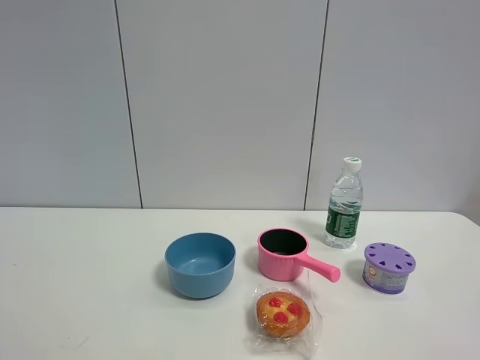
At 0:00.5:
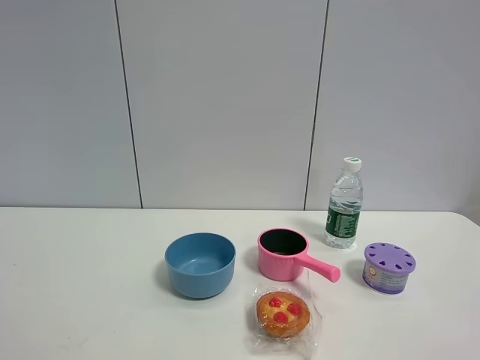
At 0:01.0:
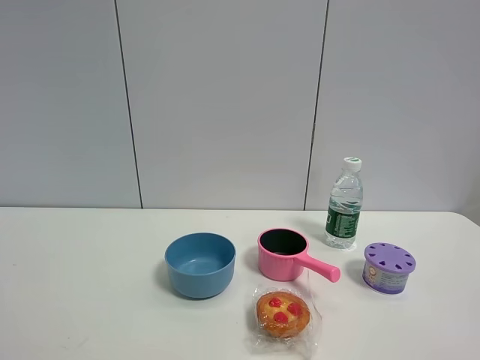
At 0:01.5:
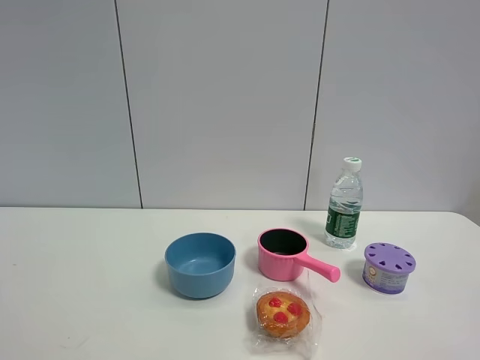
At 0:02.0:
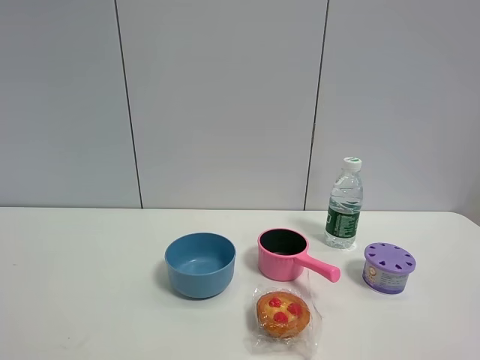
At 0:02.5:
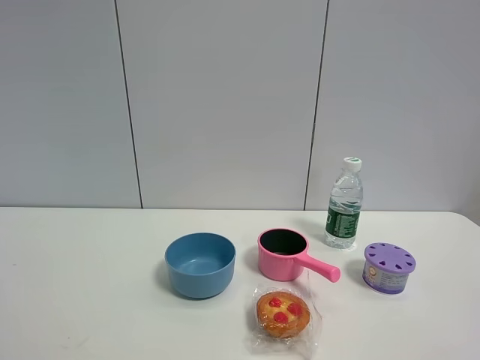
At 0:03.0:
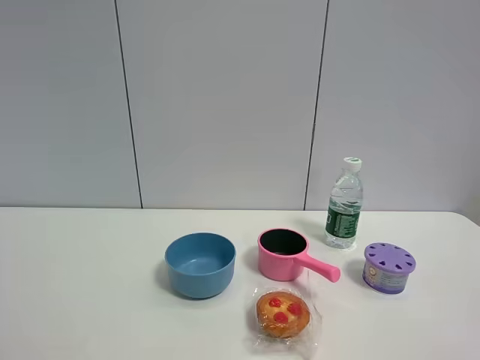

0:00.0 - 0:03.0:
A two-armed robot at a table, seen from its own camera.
Task of the whole recording: the gripper move the object.
0:00.0 - 0:03.0: Neither gripper changes place.

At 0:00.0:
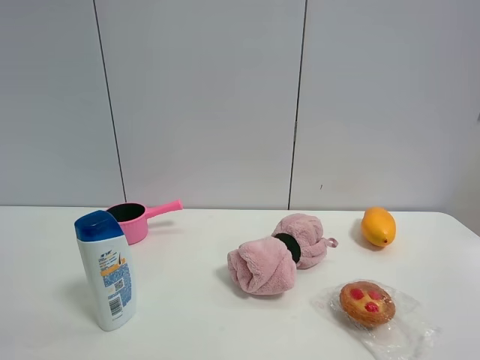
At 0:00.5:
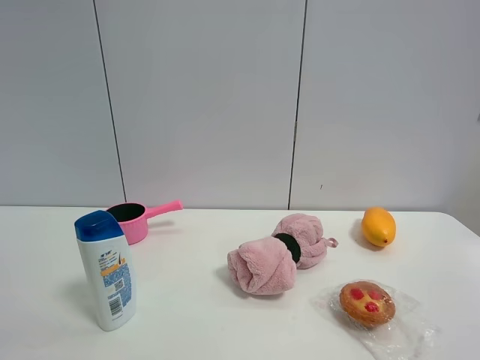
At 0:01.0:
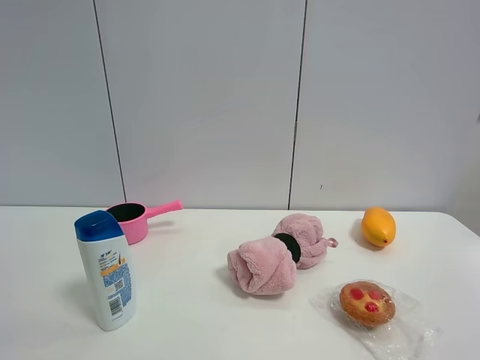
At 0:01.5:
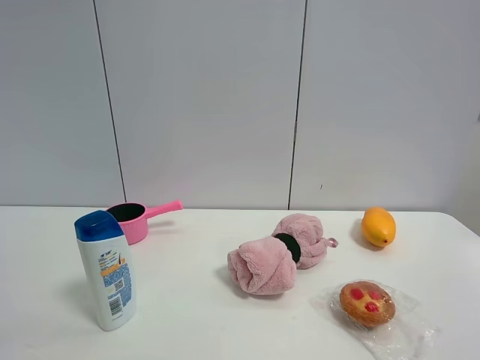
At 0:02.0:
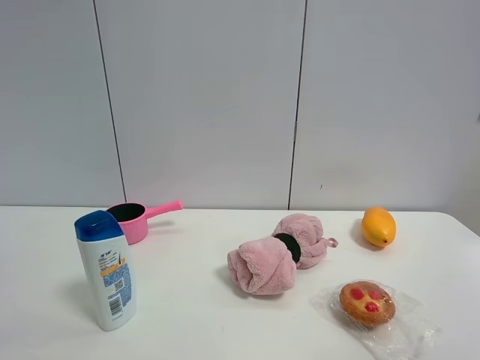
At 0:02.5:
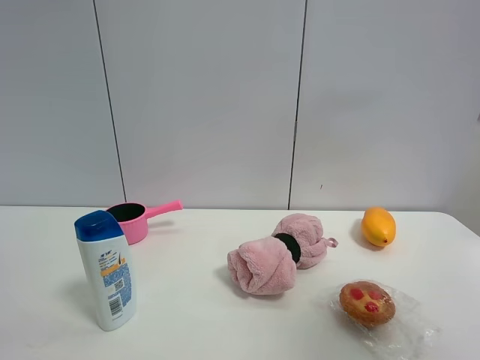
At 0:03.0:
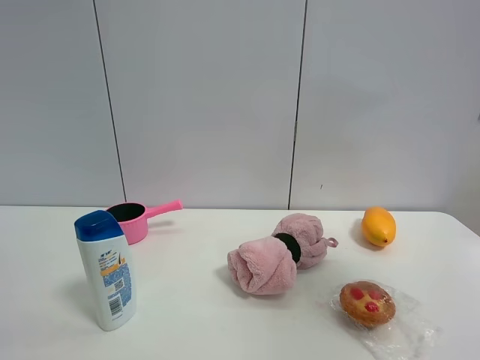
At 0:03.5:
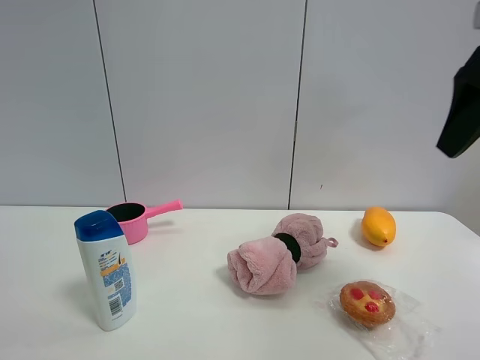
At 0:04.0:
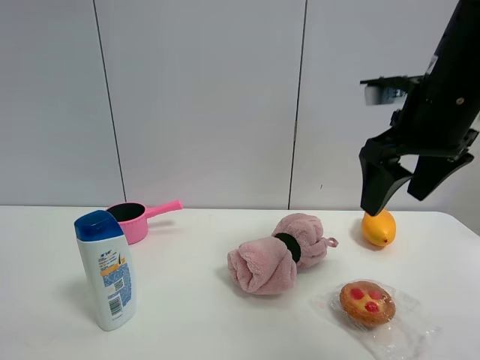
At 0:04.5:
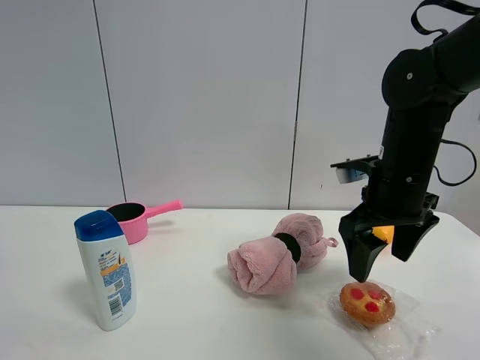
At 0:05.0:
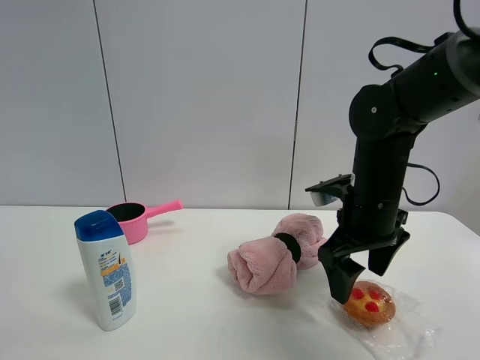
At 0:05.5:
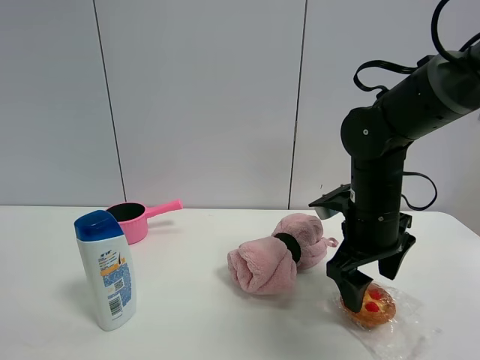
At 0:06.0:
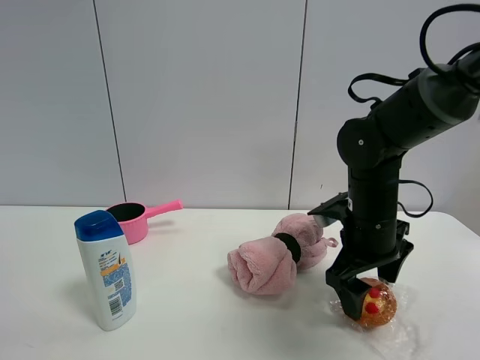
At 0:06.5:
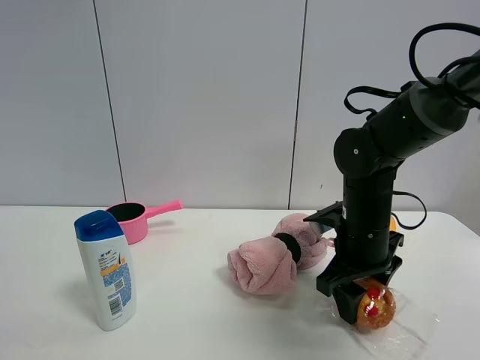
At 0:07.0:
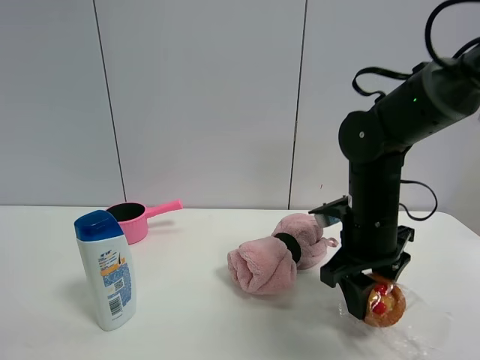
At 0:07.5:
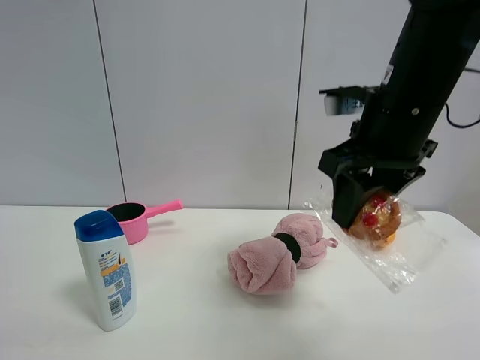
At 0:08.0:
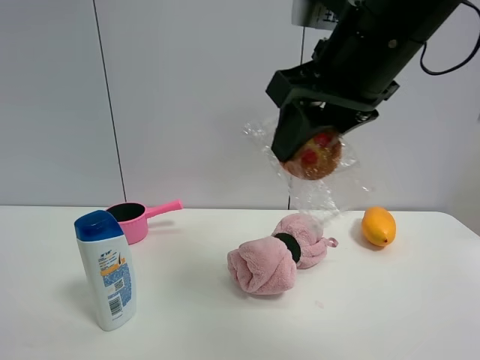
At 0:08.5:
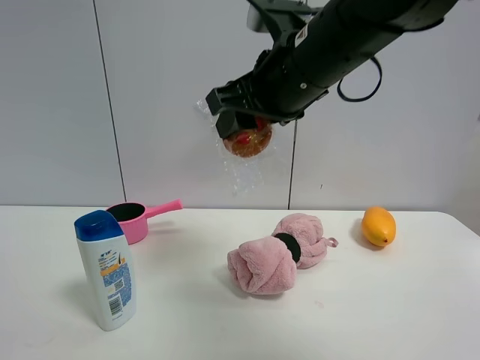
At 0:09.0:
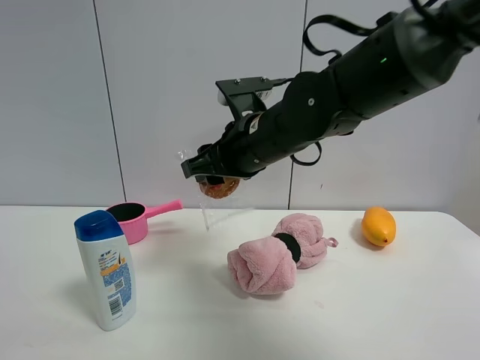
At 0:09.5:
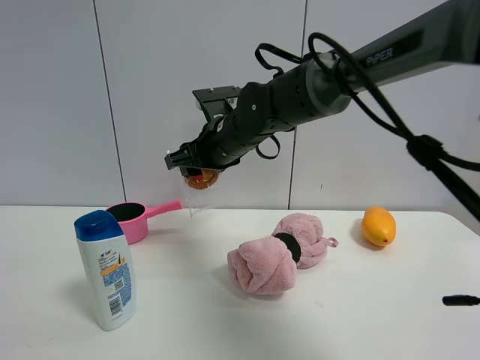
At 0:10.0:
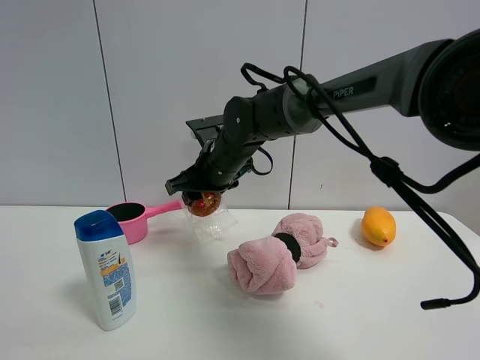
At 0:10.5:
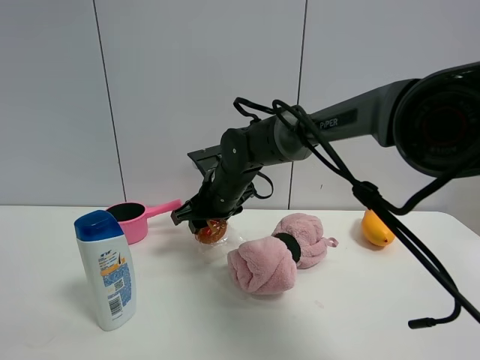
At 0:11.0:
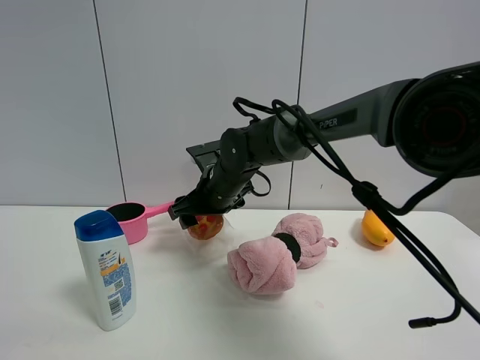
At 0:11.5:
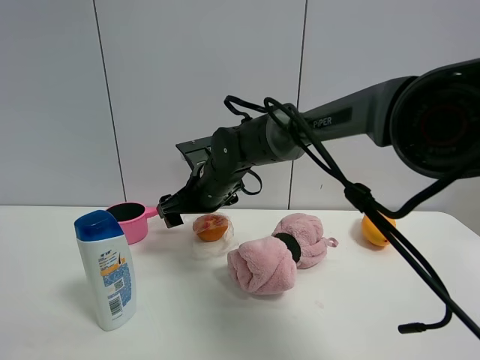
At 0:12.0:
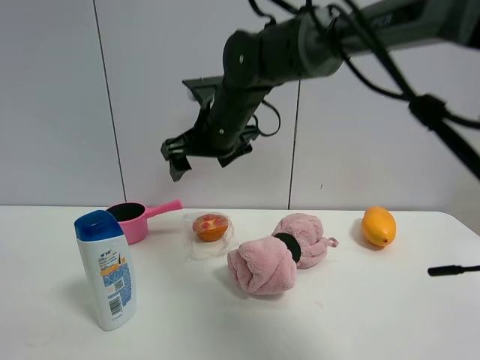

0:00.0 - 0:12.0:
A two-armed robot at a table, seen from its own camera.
Task of the whole recording: the gripper move the object.
Step, 0:00.0 - 0:06.5: Grasp the egg tart with the right gripper.
Step, 0:07.0 - 0:11.0: Place the egg tart on the table with the right gripper.
0:02.0 - 0:04.0: The right gripper shifts approximately 30 cm forward.
0:04.0 - 0:06.0: The right gripper is displaced downward by approximately 15 cm.
0:06.0 - 0:08.0: The right gripper moves upward, about 20 cm, and closes up.
0:08.0 - 0:10.0: The right gripper shifts roughly 30 cm forward, downward and to the left.
0:10.0 - 0:12.0: The right gripper goes roughly 10 cm upward, and opens up.

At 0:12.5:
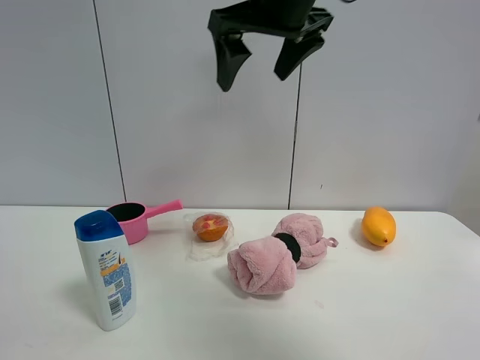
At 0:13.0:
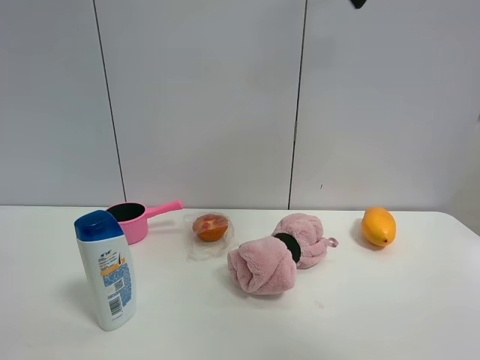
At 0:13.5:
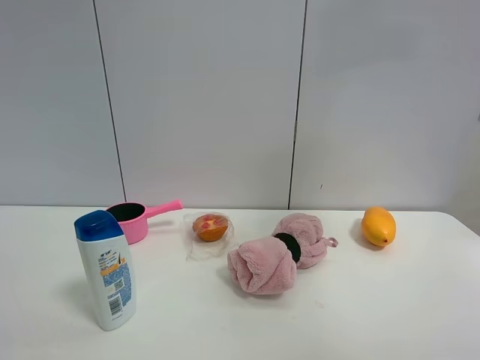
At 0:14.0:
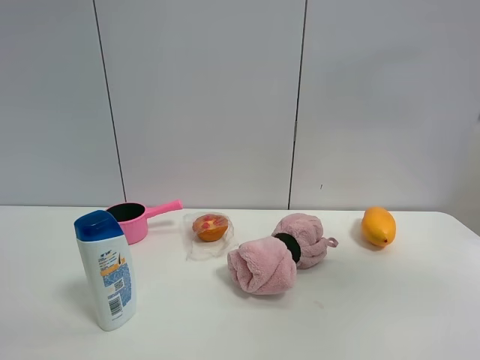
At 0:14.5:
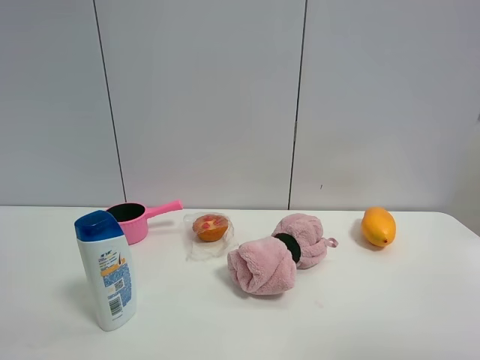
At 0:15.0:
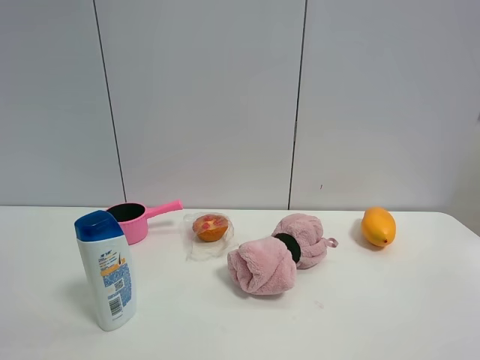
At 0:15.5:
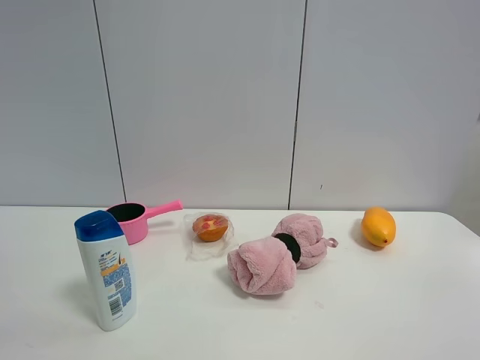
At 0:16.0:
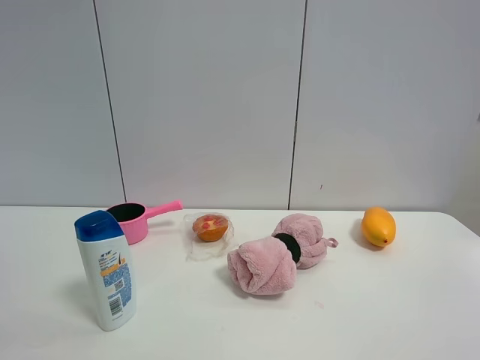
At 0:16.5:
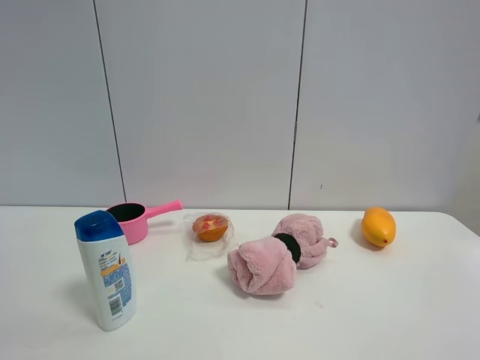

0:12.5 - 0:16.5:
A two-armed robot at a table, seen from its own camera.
Task of the whole recording: the gripper move the object.
0:12.5 - 0:14.5: The right gripper is displaced backward and to the right by about 40 cm.

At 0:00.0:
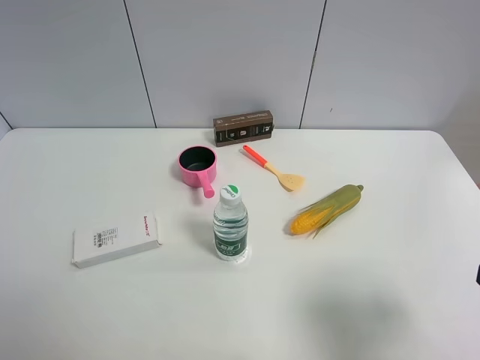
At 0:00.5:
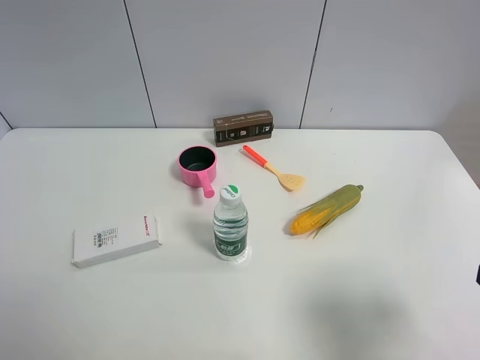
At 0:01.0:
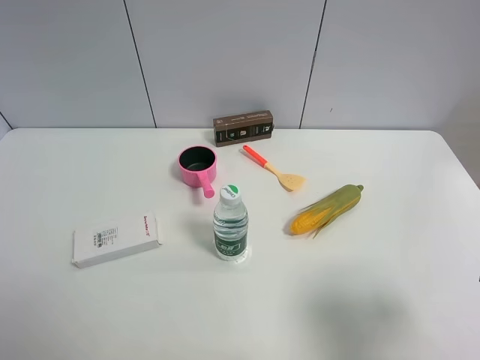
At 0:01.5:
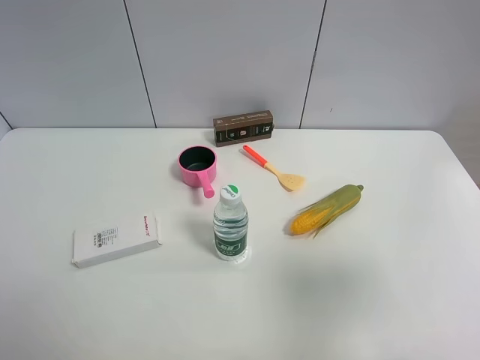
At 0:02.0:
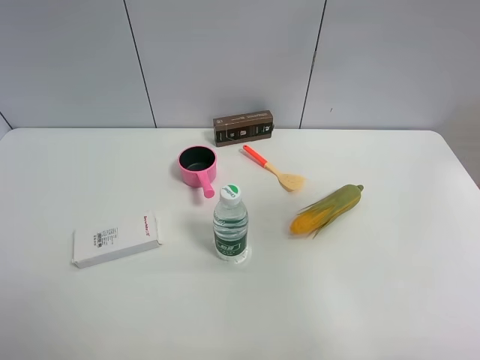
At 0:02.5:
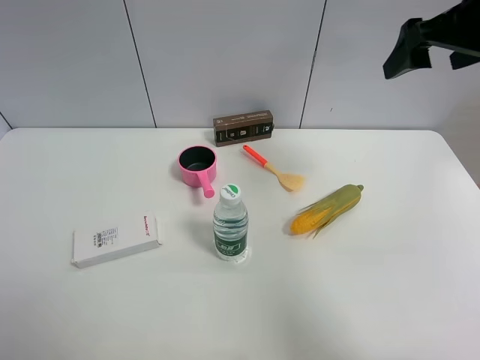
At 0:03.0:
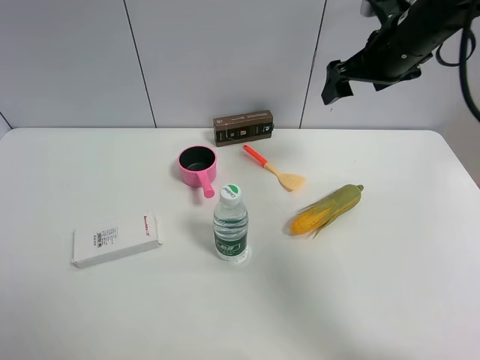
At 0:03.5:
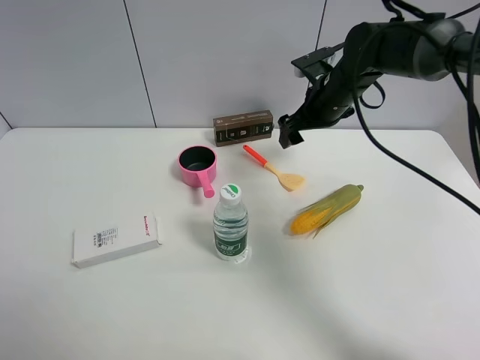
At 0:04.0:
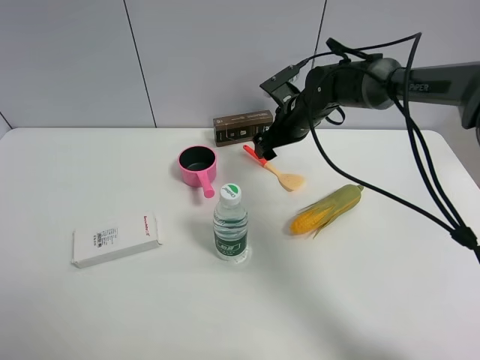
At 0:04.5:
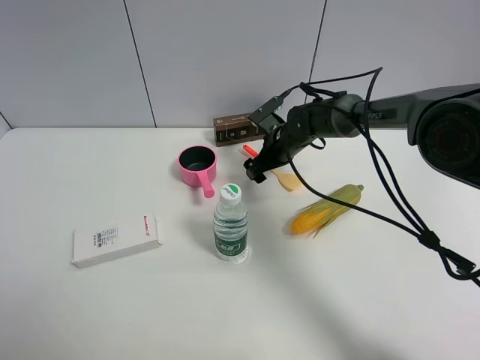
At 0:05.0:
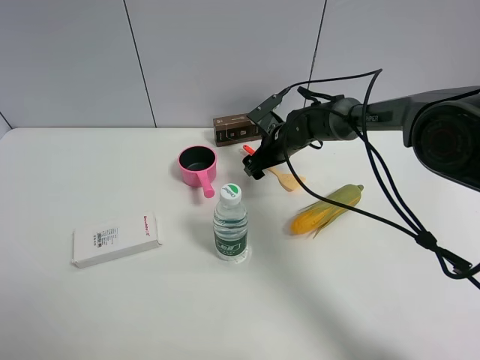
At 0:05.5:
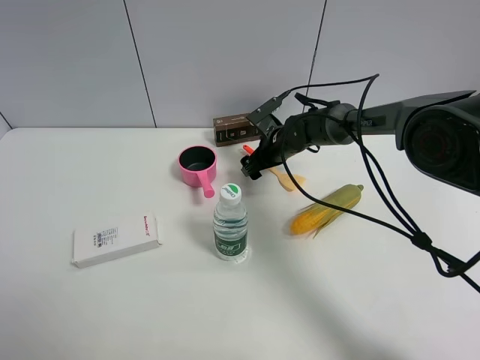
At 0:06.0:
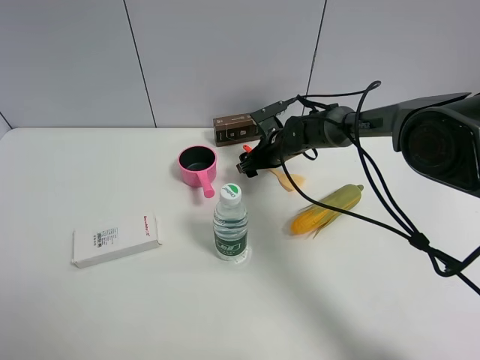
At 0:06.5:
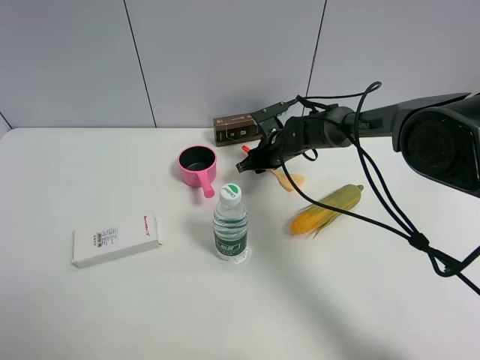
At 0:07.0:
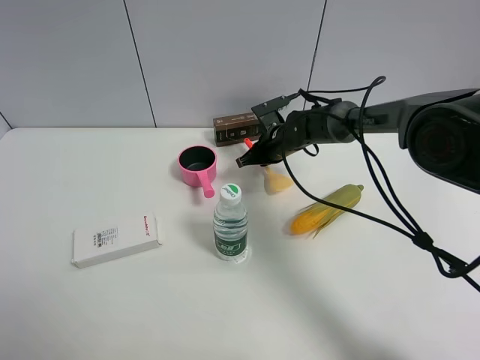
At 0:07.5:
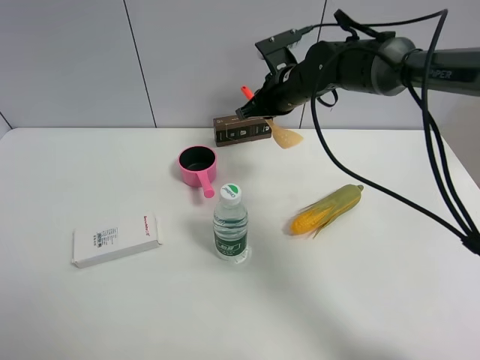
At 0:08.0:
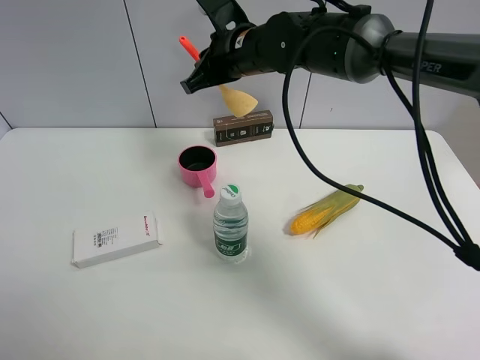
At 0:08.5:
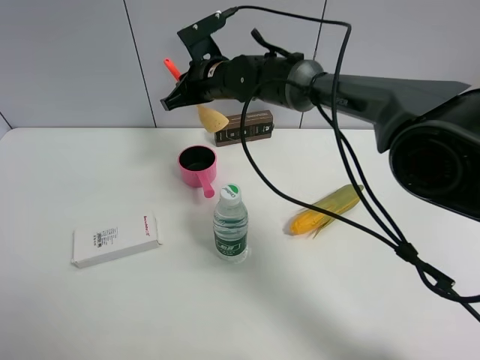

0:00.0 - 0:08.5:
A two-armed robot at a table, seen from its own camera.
Task of the whole recording: the gripper move the object.
Step, 0:00.0 - 0:06.5: Grasp the cooking shovel with the right gripper.
0:00.0 - 0:02.0: The right gripper moves upward and forward, about 20 cm.
0:02.0 - 0:04.0: The right gripper goes approximately 40 cm forward, downward and to the left.
0:04.0 - 0:06.5: The right gripper travels downward by roughly 10 cm, and closes its fingers.
0:06.5 - 0:08.5: The right gripper shifts roughly 20 cm upward and to the left.
